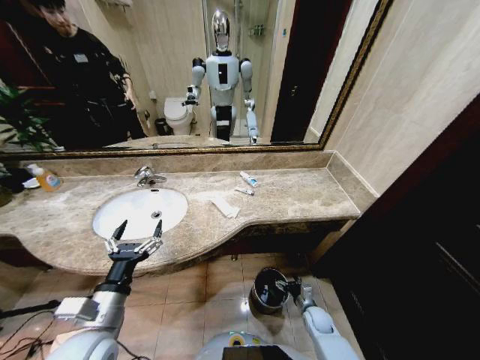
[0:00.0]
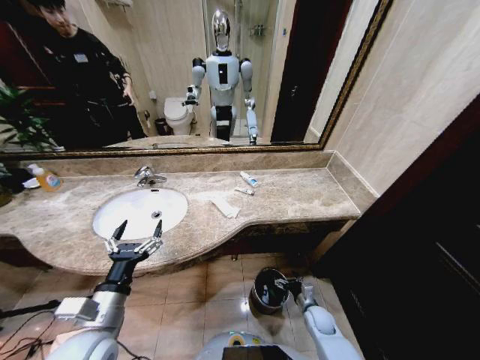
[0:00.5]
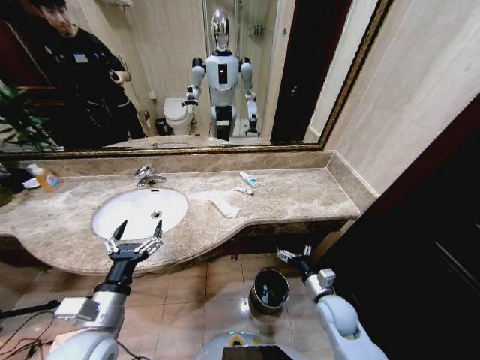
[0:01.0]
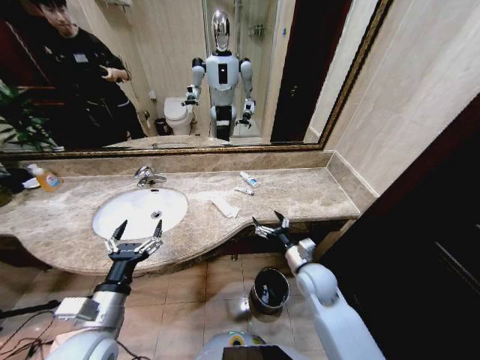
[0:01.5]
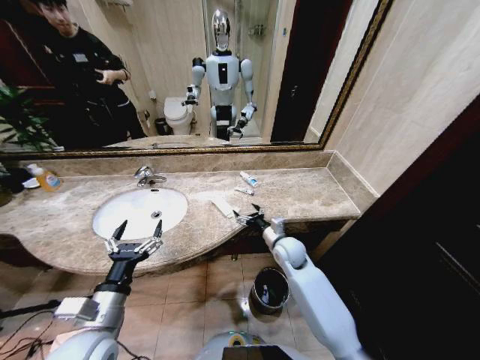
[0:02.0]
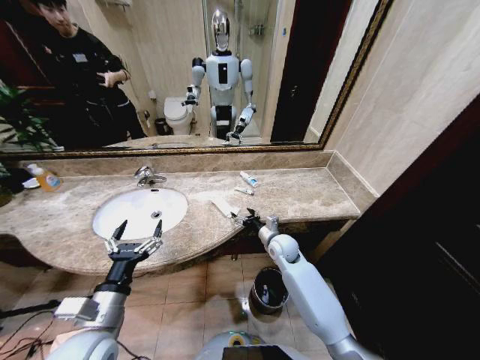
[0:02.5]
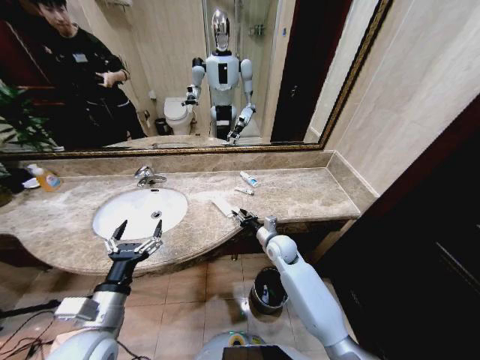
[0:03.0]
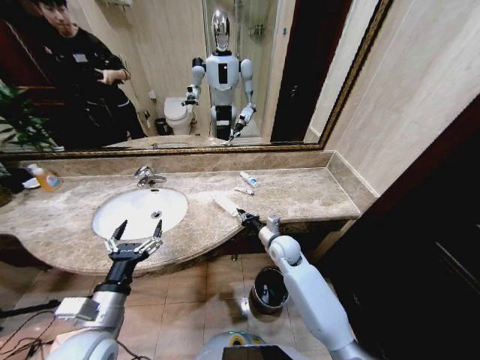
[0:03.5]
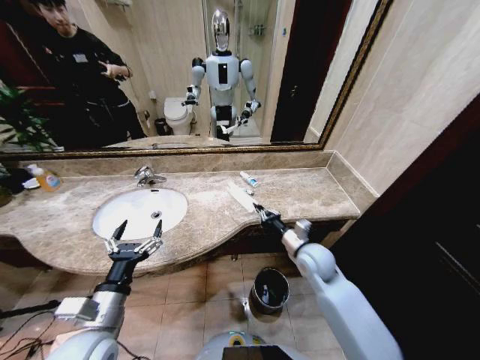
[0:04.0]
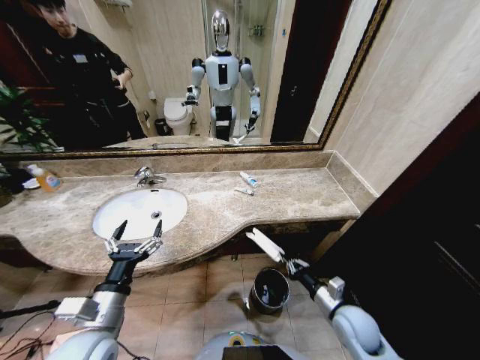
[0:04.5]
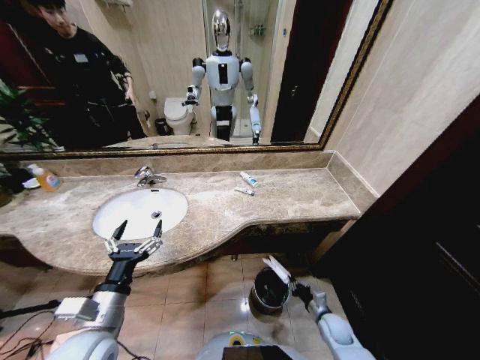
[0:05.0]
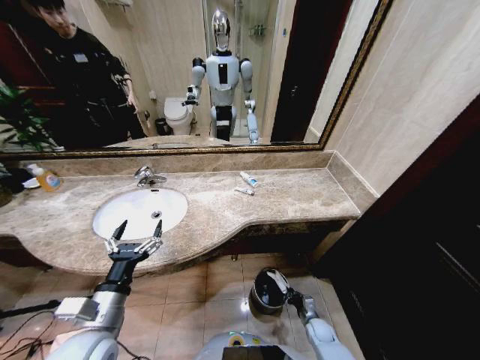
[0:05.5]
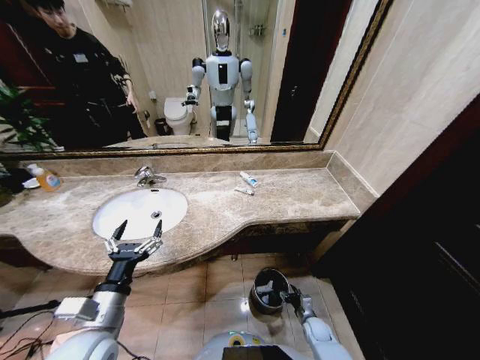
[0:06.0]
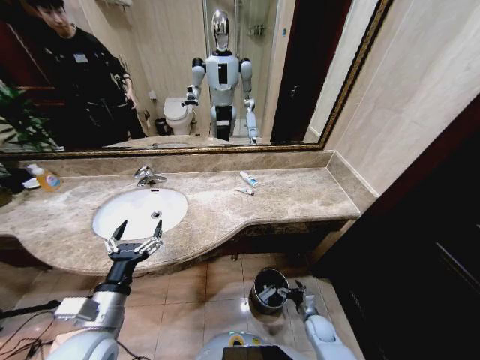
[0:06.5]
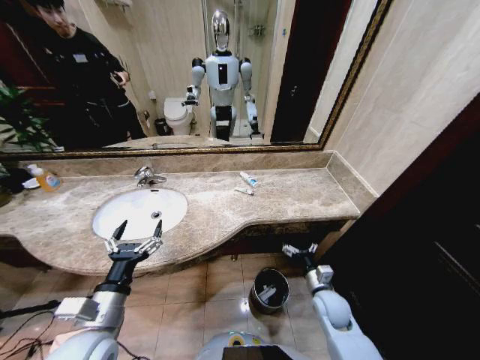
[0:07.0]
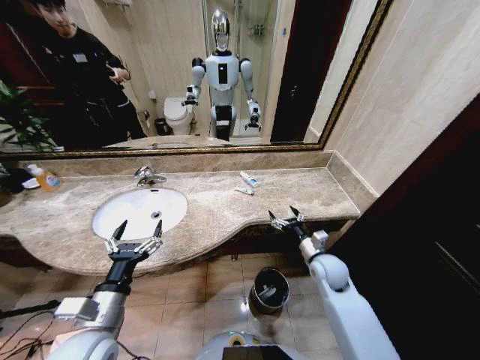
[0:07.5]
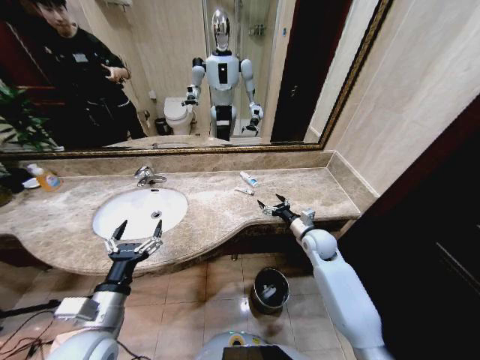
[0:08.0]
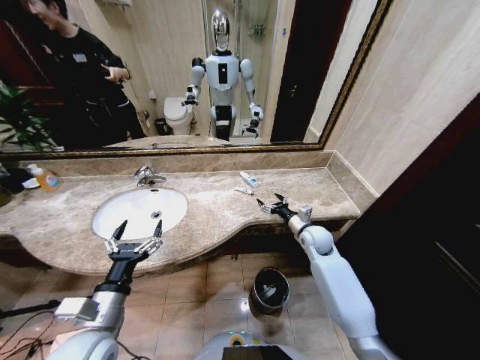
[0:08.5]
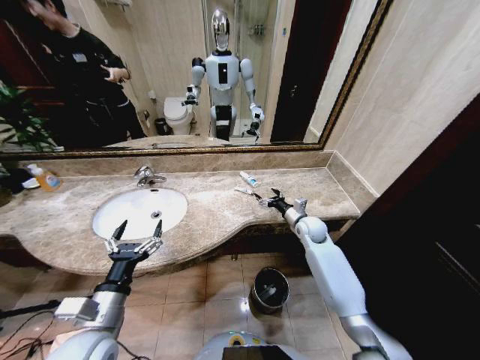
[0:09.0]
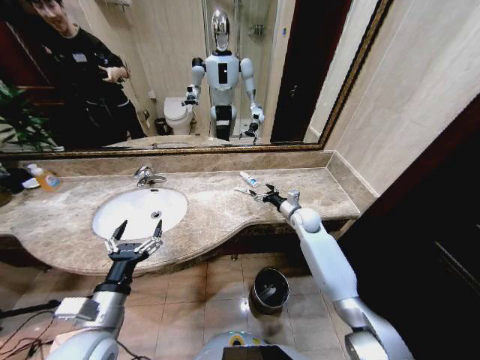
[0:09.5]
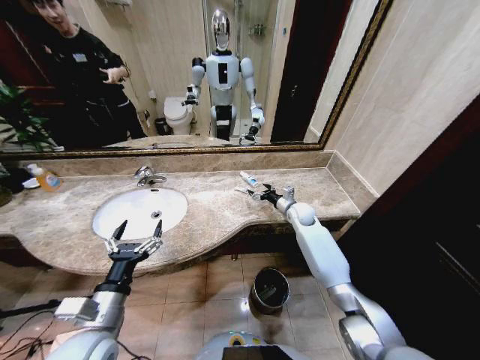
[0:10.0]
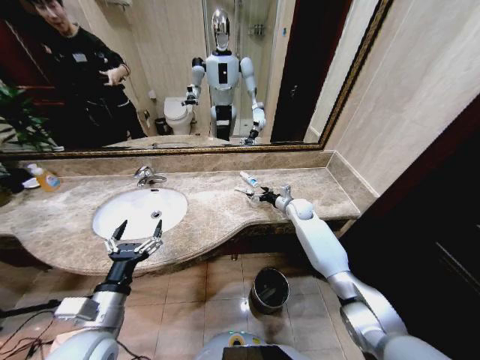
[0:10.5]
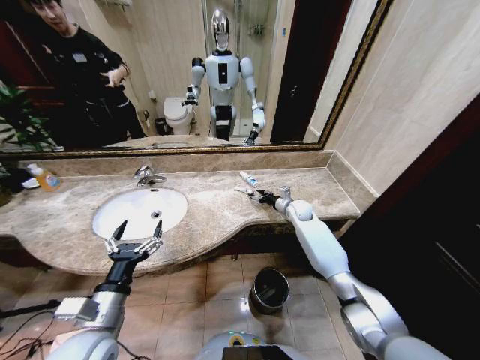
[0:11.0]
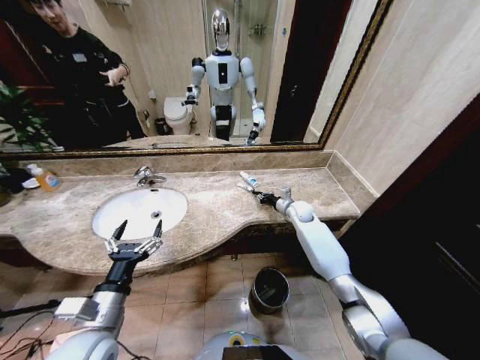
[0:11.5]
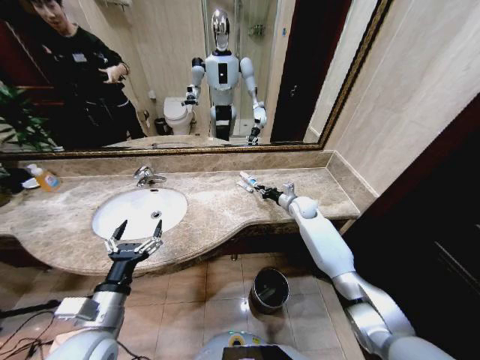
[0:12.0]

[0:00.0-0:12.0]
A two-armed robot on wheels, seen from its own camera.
Task of the whole recording: Pick up the trash from the sink and place it in the trash bin.
0:00.0 to 0:02.0: The right gripper heads upward, forward and to the left, covering about 30 cm.
0:02.0 to 0:04.0: The right gripper shifts about 10 cm backward and to the right, and closes up.
0:04.0 to 0:06.0: The right gripper travels downward by approximately 35 cm, and opens.
0:06.0 to 0:08.0: The right gripper is displaced upward and forward by some 35 cm, and opens up.
0:08.0 to 0:10.0: The right gripper shifts about 10 cm forward.
0:10.0 to 0:12.0: The right gripper closes up.

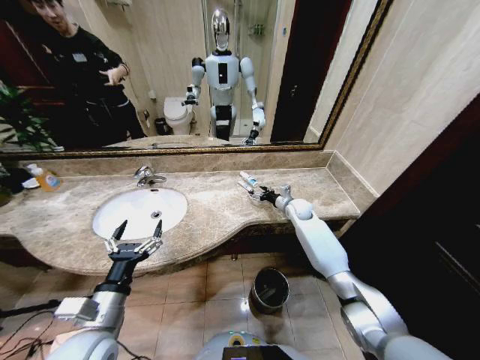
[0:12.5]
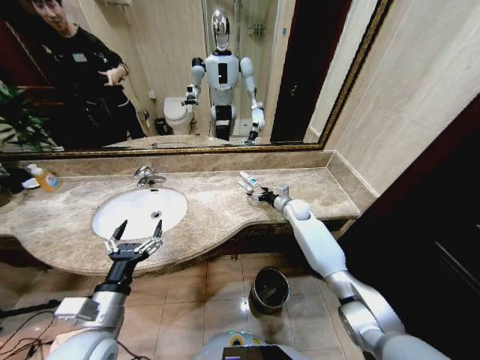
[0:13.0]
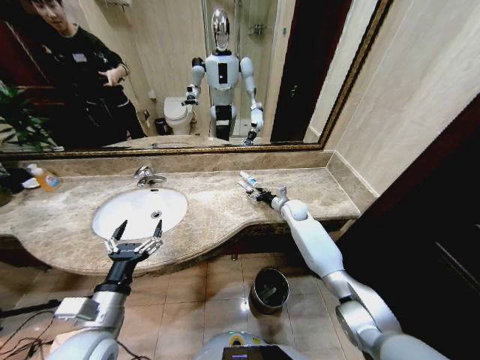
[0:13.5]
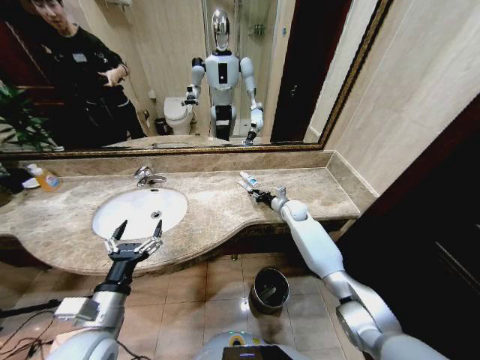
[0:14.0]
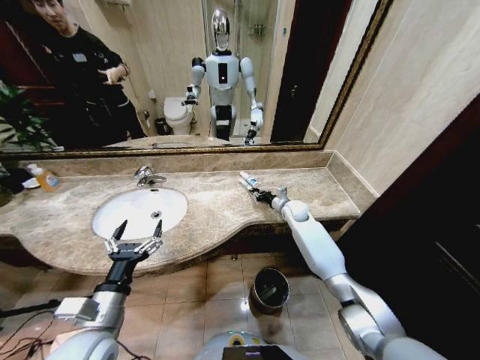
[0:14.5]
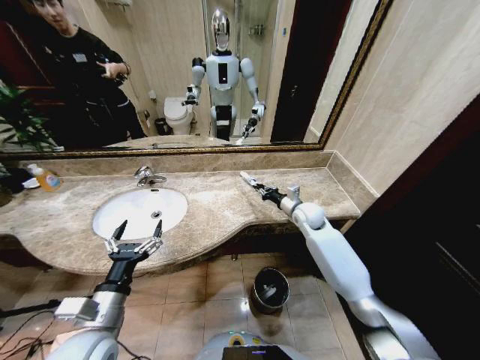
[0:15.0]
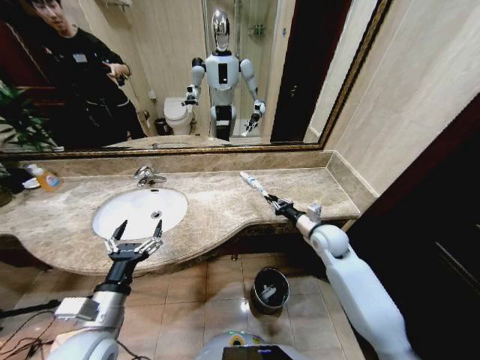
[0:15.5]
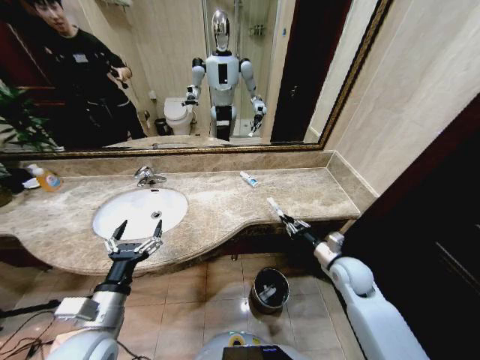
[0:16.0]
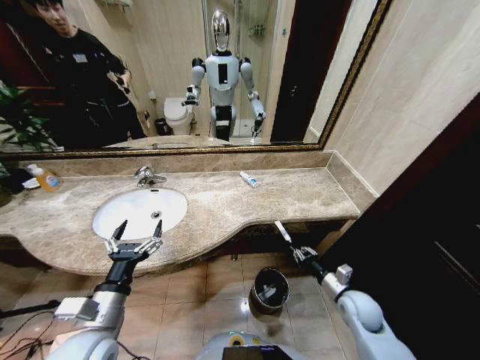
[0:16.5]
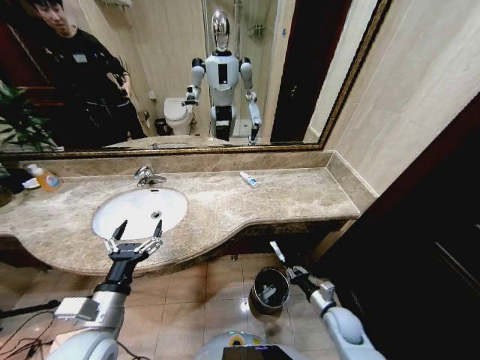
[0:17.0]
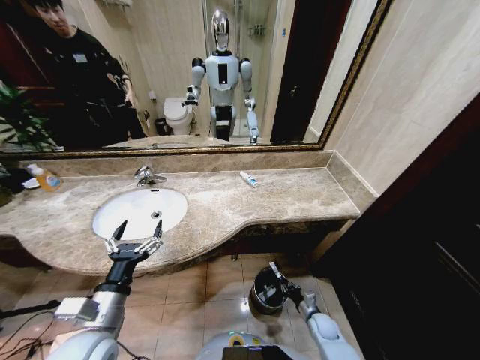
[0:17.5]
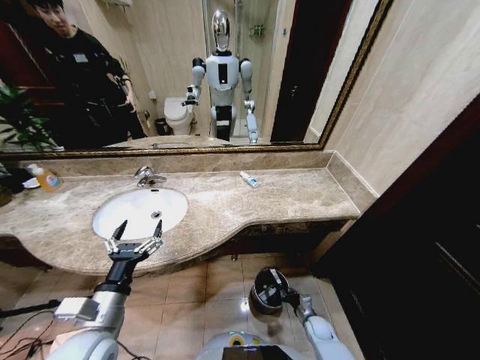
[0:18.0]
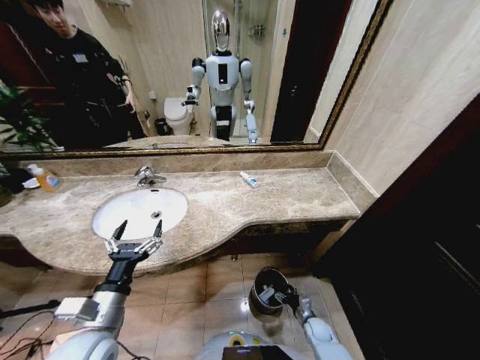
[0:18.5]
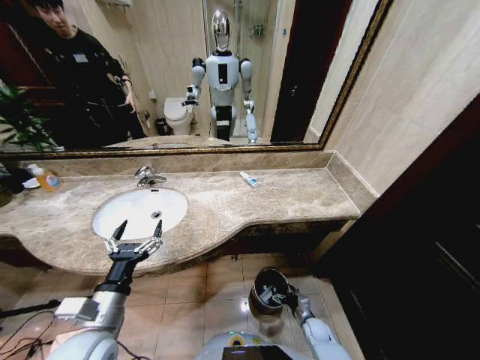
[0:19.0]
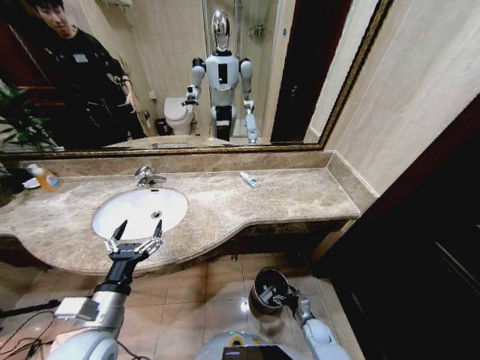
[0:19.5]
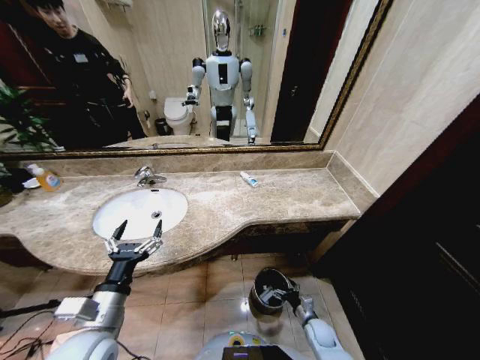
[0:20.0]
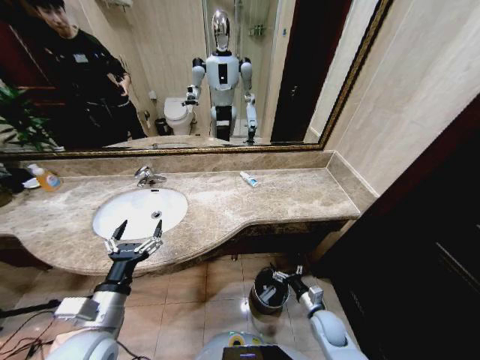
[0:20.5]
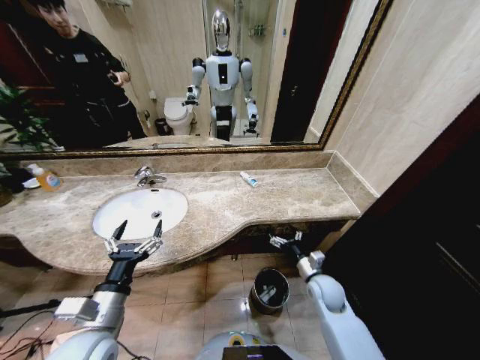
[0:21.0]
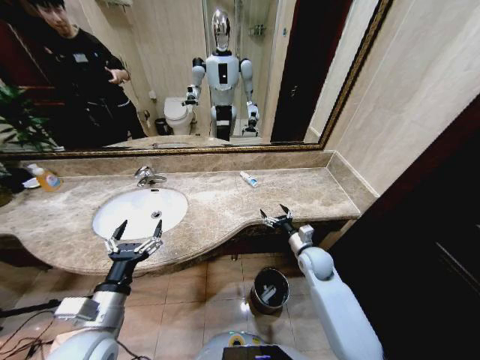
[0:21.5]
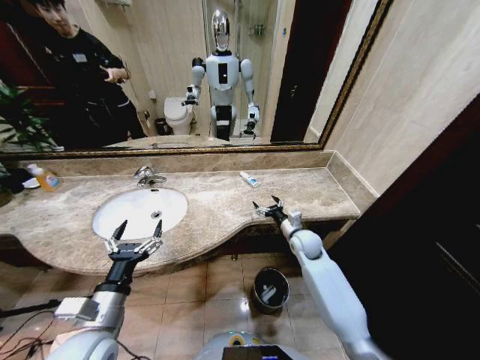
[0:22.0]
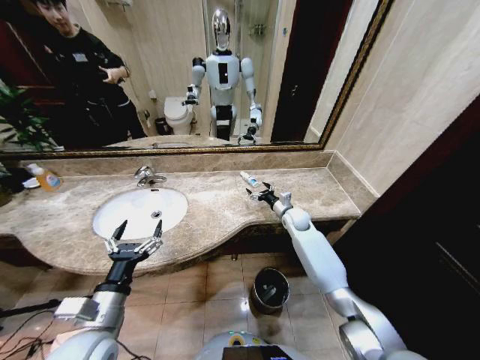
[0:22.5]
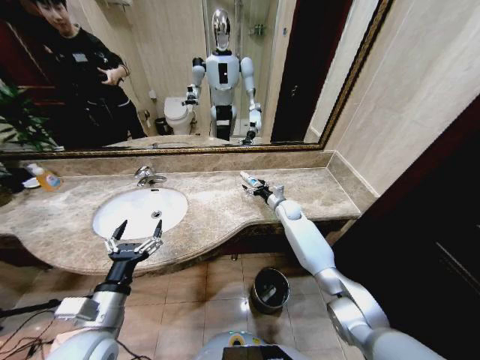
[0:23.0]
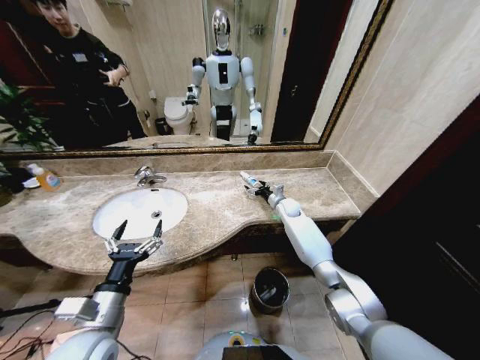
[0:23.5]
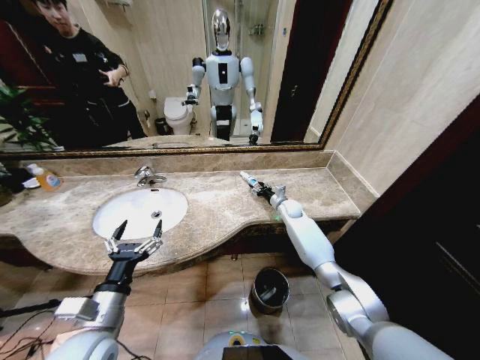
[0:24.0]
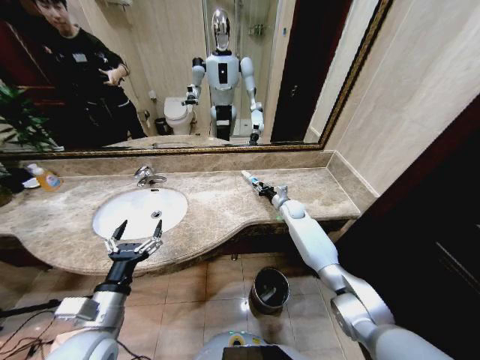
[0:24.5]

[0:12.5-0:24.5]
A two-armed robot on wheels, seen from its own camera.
Task of the whole recording: Pick up the trash from the sink and place it in the trash bin.
0:12.5 to 0:14.5: The right gripper closes.
0:14.5 to 0:16.5: The right gripper is displaced backward by roughly 30 cm.
0:16.5 to 0:18.5: The right gripper is displaced downward by some 25 cm, and opens its fingers.
0:18.5 to 0:20.5: The right gripper goes approximately 15 cm upward.
0:20.5 to 0:22.5: The right gripper heads forward and upward, covering approximately 35 cm.
0:22.5 to 0:24.5: The right gripper shifts about 5 cm forward, and closes its fingers.

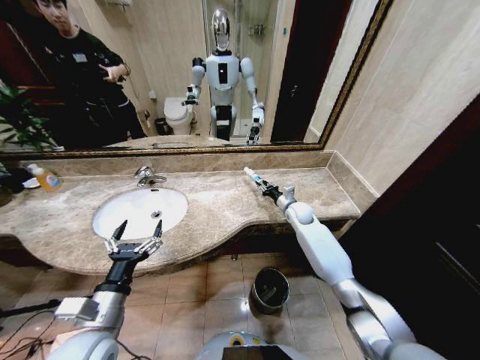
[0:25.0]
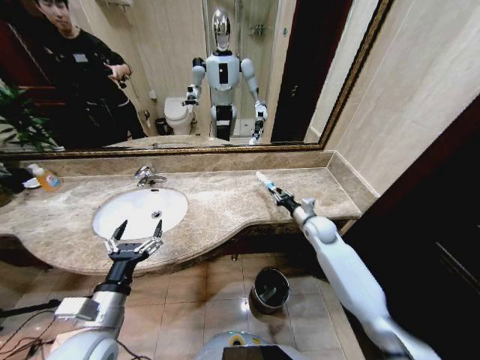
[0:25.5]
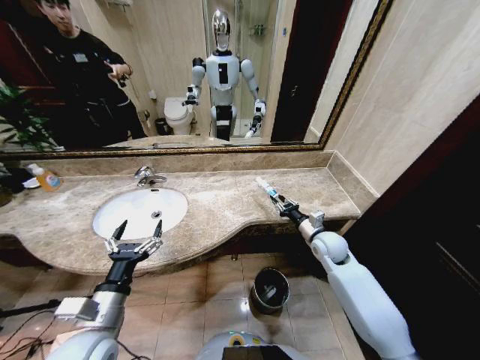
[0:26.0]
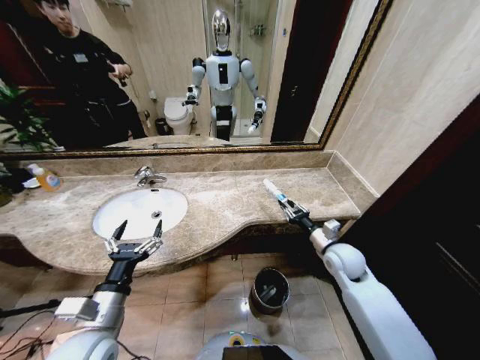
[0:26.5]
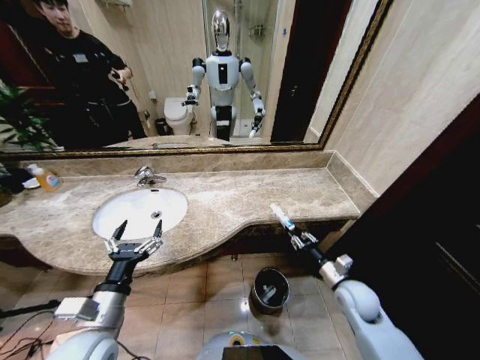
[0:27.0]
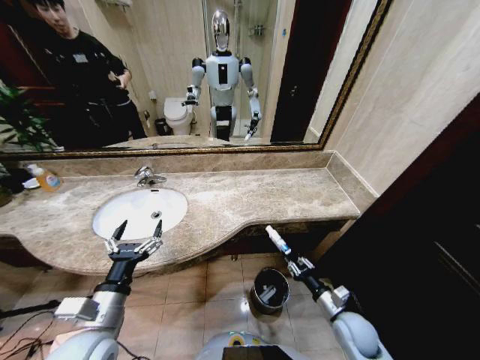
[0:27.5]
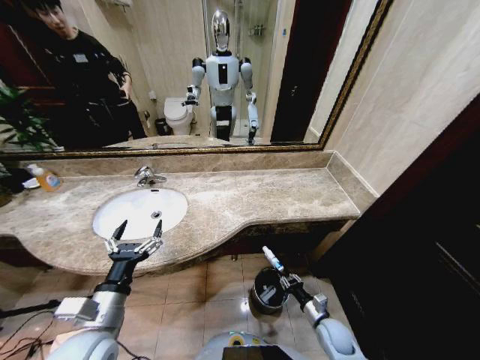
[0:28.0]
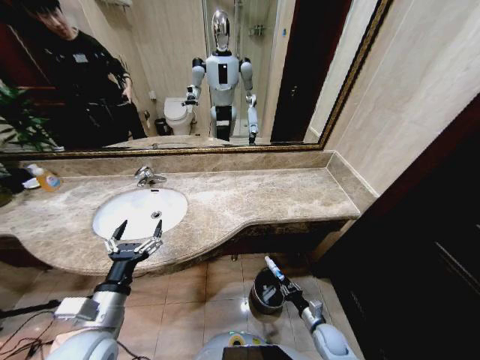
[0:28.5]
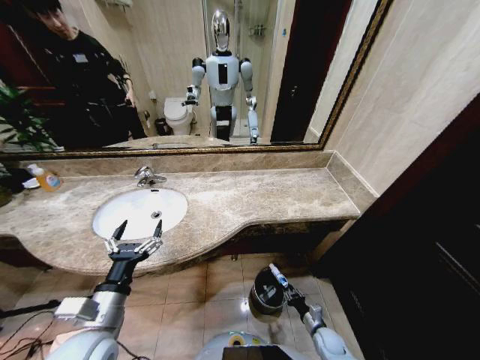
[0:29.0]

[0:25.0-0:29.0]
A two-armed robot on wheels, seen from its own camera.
Task of the whole recording: Pick up the trash from the sink and place it in the trash bin.
0:25.0 to 0:27.0: The right gripper moves backward, roughly 30 cm.
0:27.0 to 0:29.0: The right gripper moves downward, roughly 25 cm.
